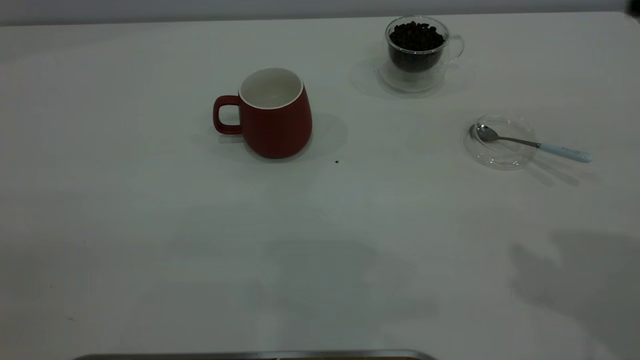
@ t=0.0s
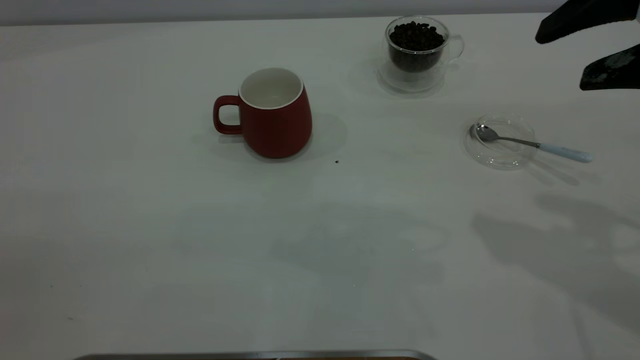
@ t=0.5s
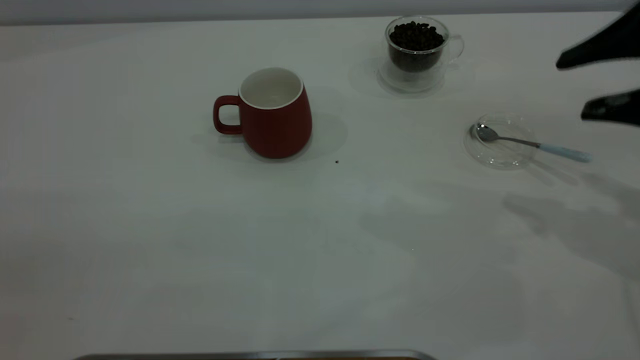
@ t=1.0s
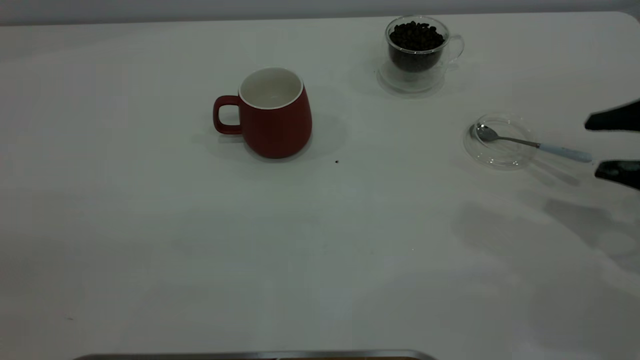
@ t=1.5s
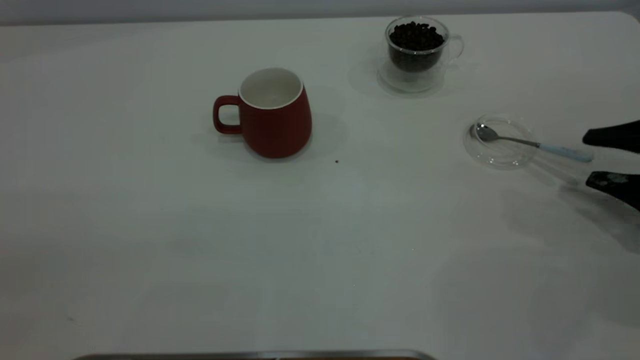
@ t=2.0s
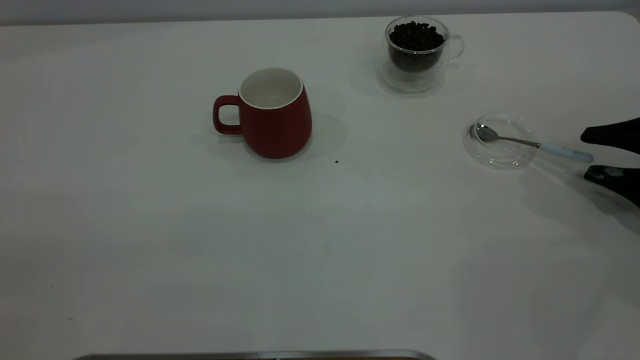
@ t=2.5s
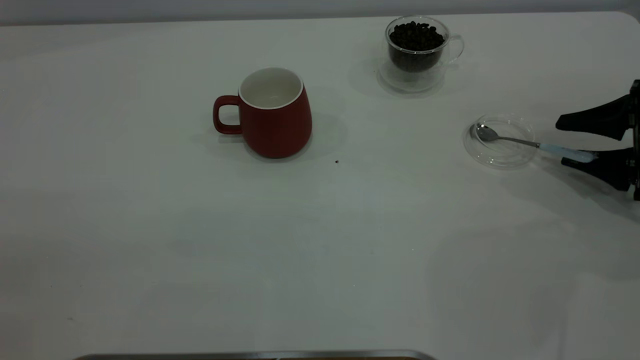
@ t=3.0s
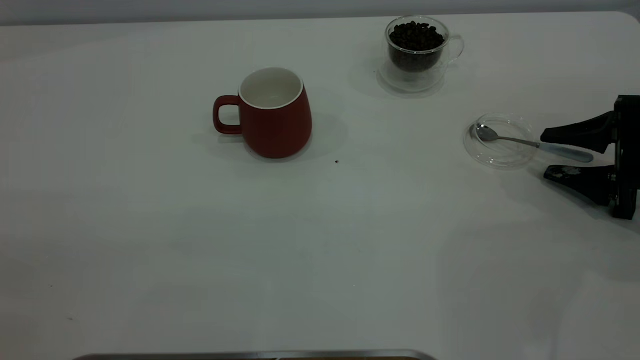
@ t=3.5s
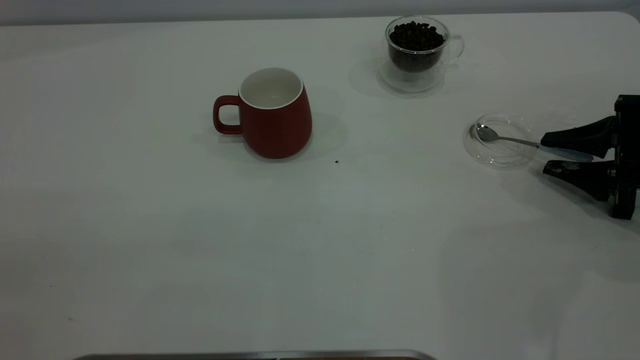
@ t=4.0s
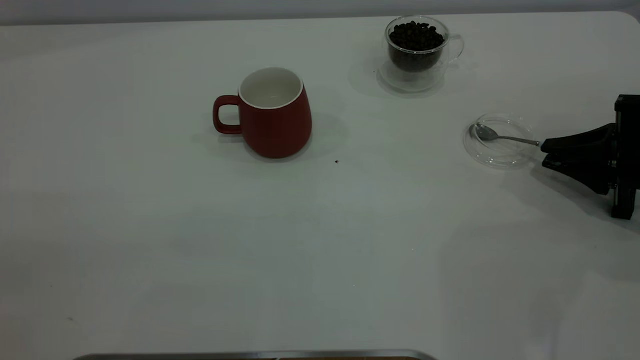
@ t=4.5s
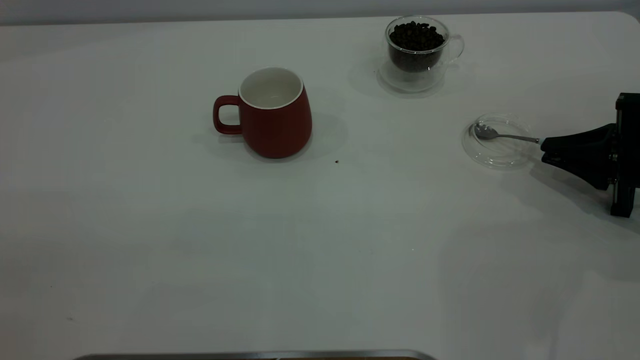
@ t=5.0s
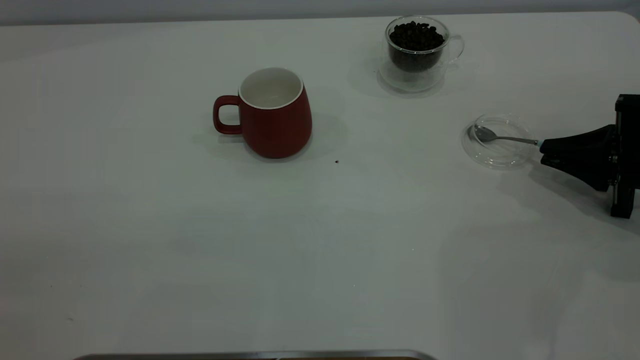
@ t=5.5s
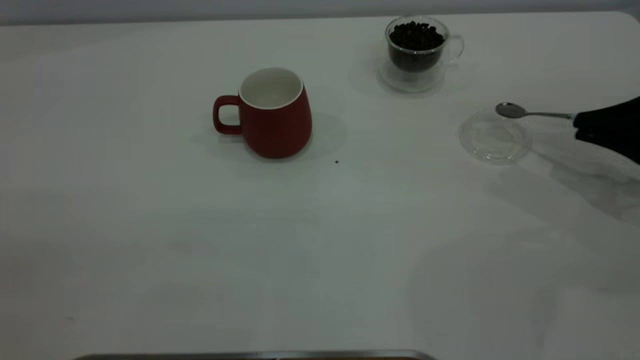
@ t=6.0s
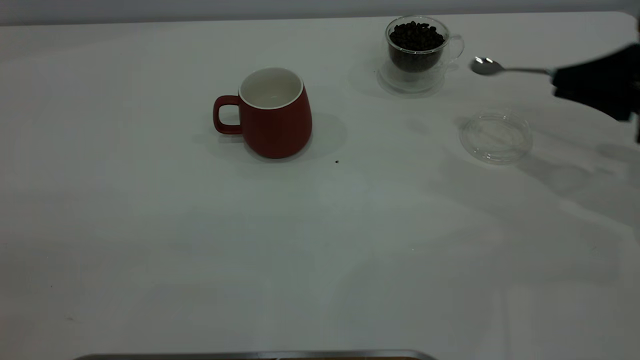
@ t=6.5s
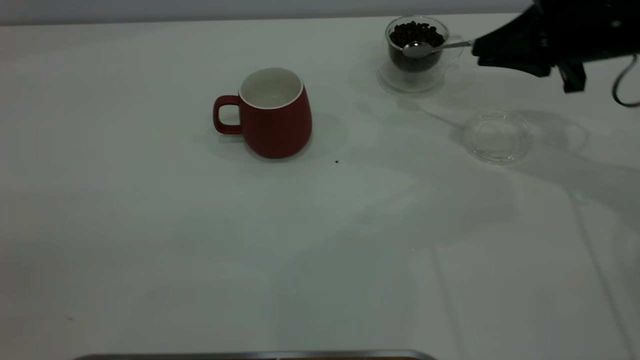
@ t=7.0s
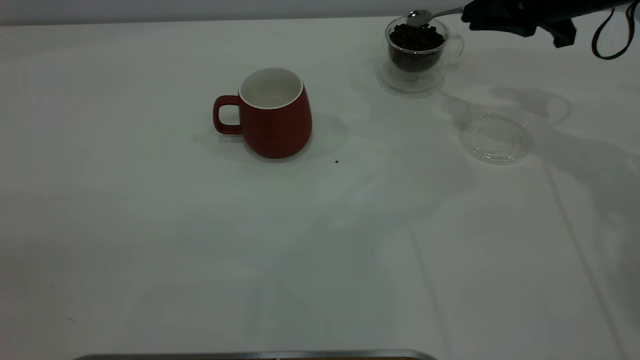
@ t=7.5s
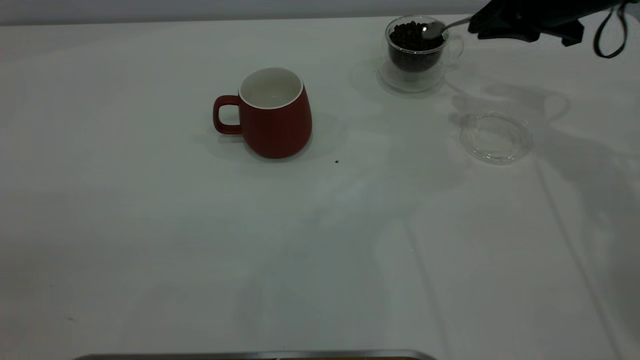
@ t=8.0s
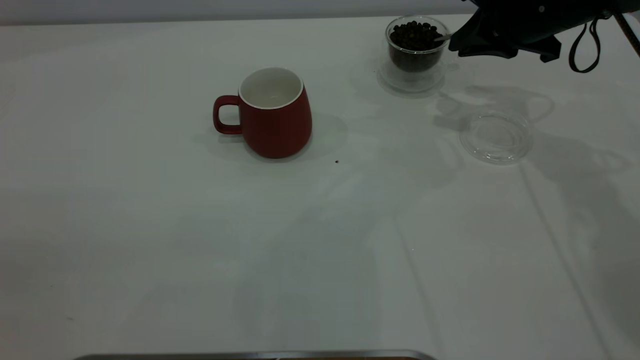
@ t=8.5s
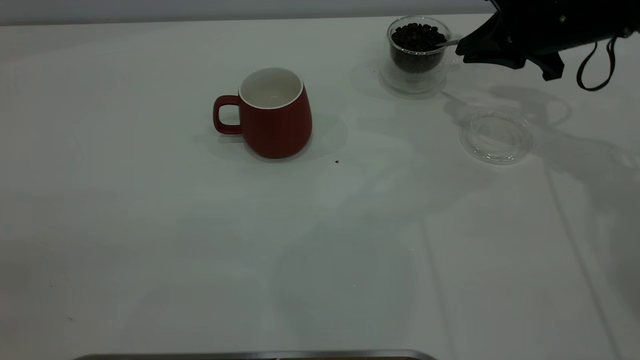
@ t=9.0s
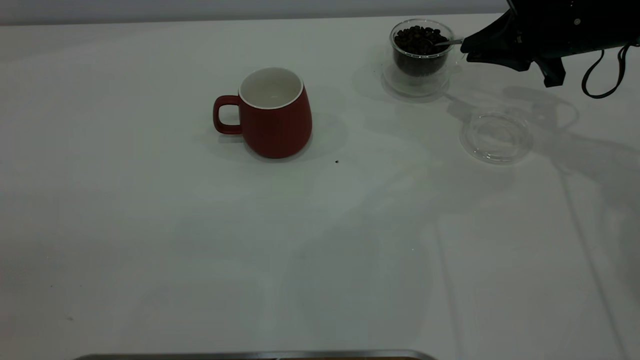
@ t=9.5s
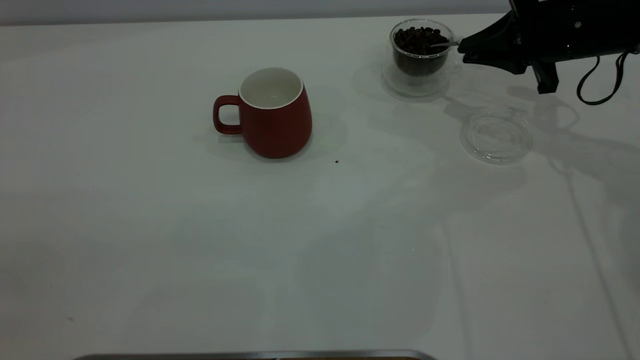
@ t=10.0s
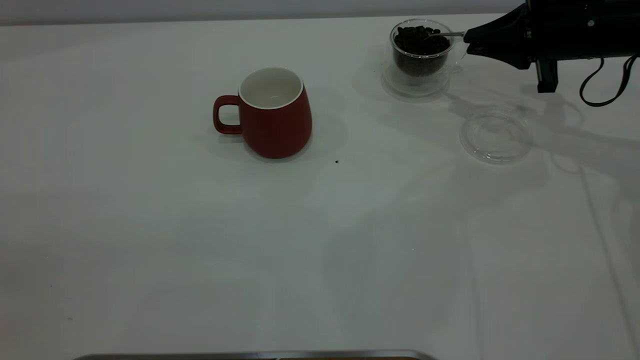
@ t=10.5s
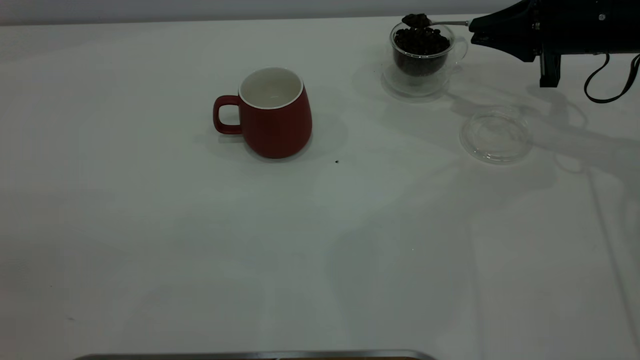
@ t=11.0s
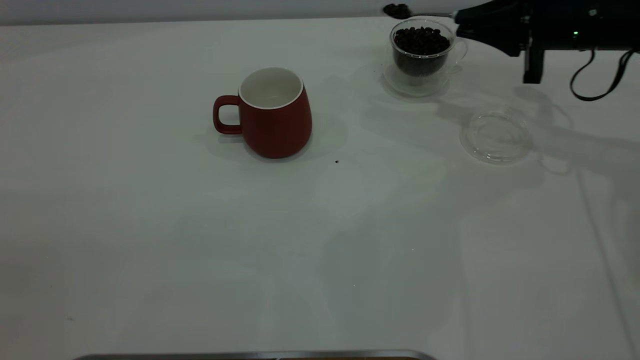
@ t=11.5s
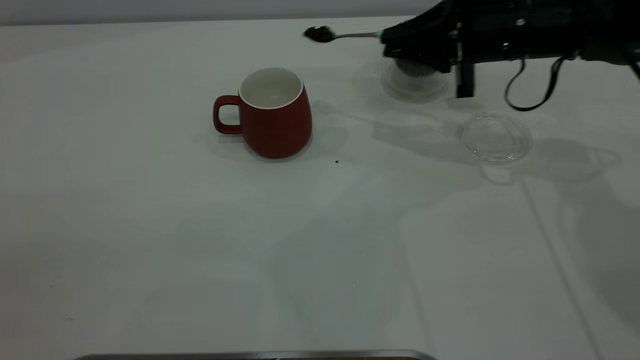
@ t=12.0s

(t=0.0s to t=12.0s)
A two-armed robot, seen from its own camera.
Task of the whole recording: the left gripper place the red cup in the center of the table, the right gripper take the blue spoon from the cup lid and scoop out the coffee beans from the coffee cup and put them into the red cup, the right gripper put the spoon back into the cup lid.
Step, t=0.0s - t=6.0s: Pick up the spoon.
t=0.0s - t=2.0s: The right gripper is displaced downward and to the right by about 30 cm.
t=2.0s - t=4.0s: The right gripper moves about 5 cm, and closes.
t=4.0s - t=6.0s: The right gripper heads upward, covering some 5 cm, and closes up.
t=6.0s - t=8.0s: The right gripper goes roughly 20 cm forward, to the left and upward.
t=8.0s - t=10.0s: The right gripper moves about 5 cm.
t=10.0s - t=12.0s: The right gripper moves to the left, some 10 cm.

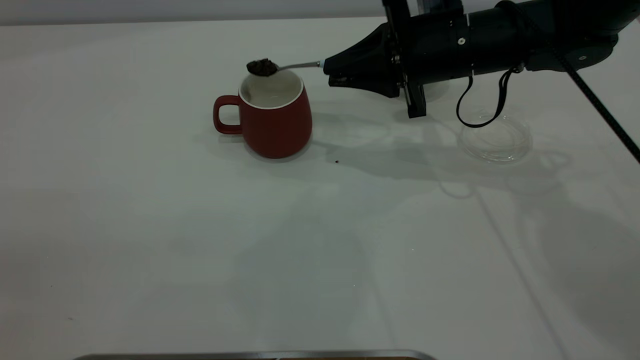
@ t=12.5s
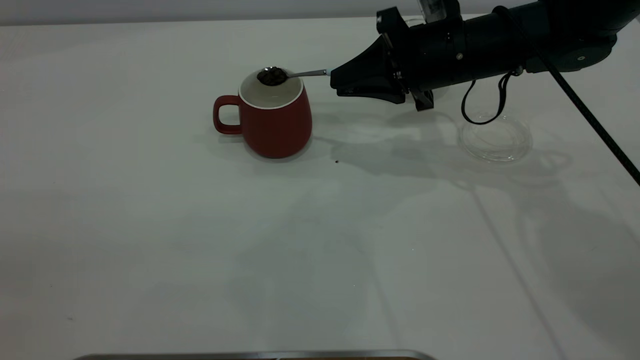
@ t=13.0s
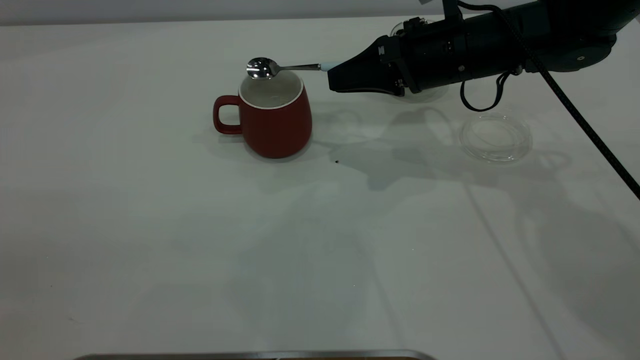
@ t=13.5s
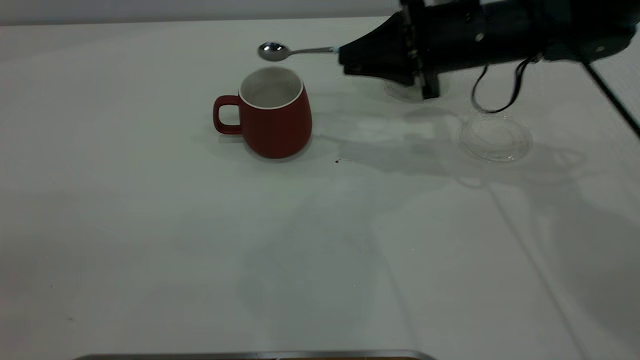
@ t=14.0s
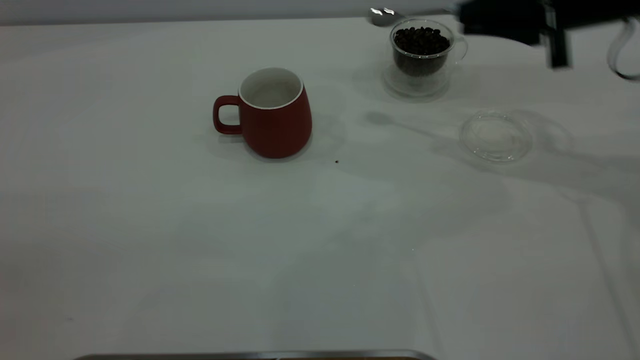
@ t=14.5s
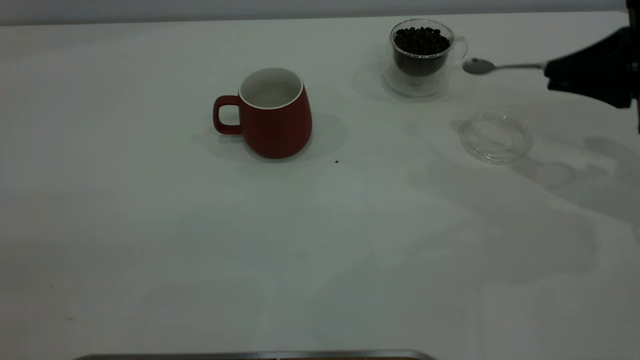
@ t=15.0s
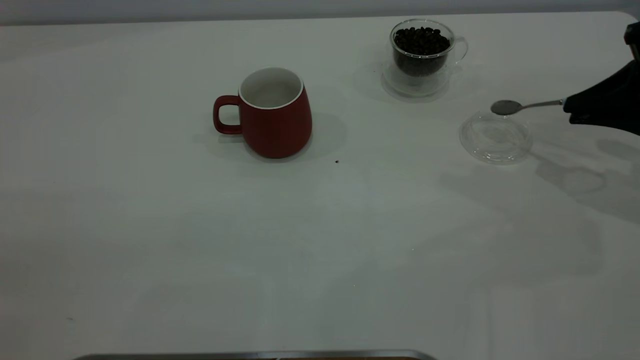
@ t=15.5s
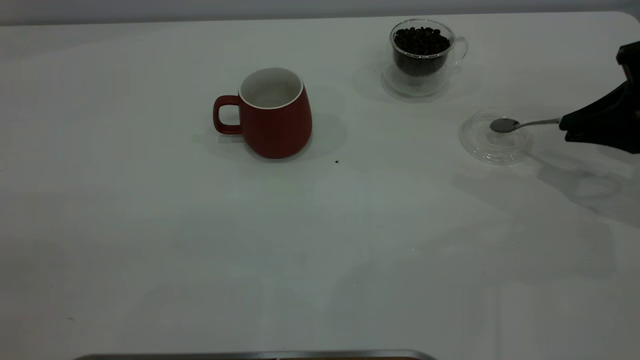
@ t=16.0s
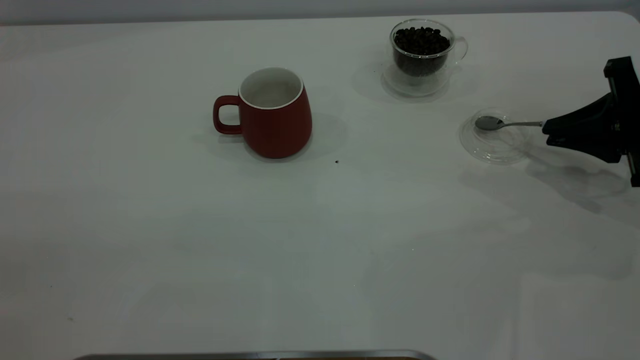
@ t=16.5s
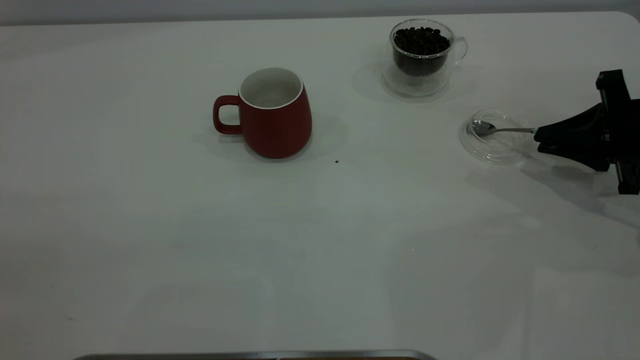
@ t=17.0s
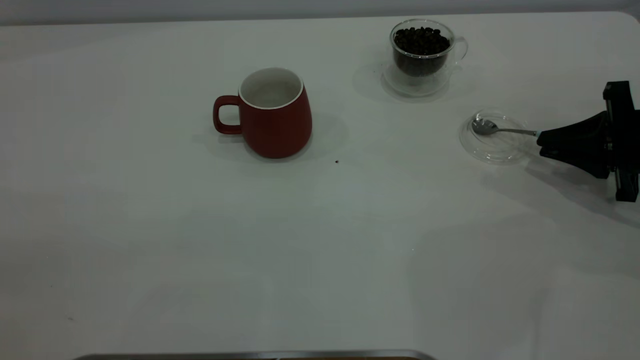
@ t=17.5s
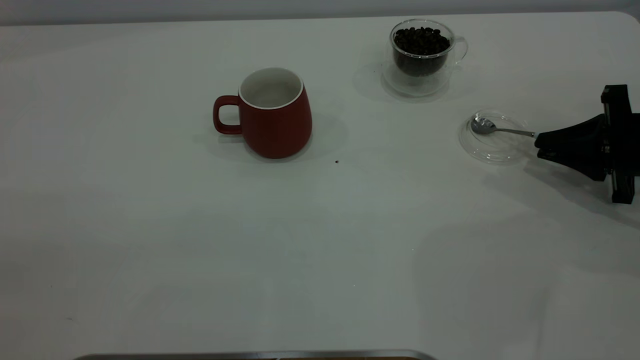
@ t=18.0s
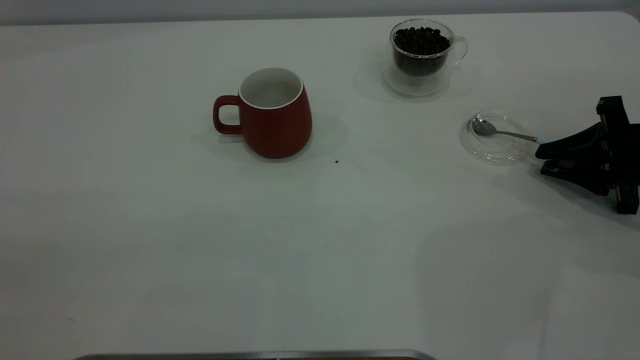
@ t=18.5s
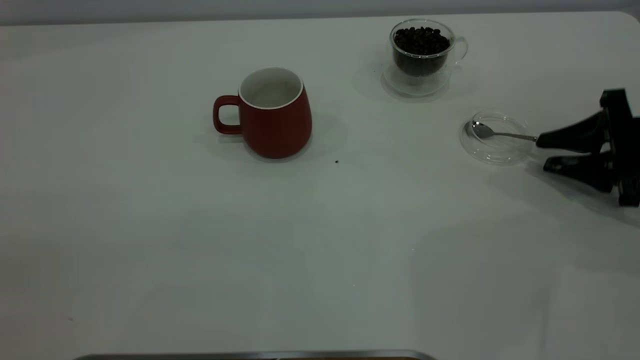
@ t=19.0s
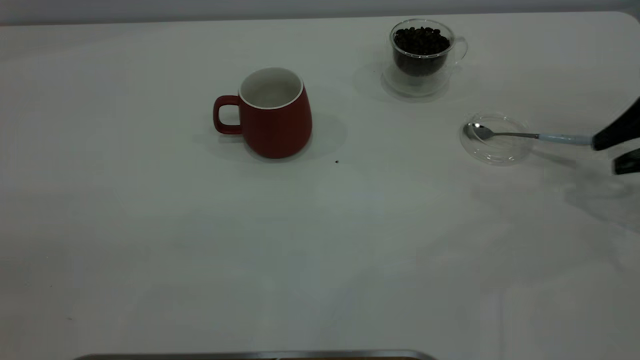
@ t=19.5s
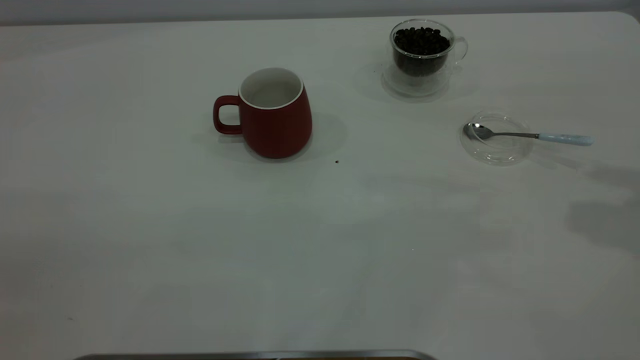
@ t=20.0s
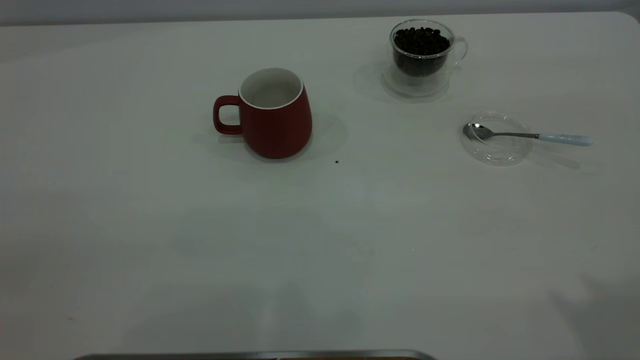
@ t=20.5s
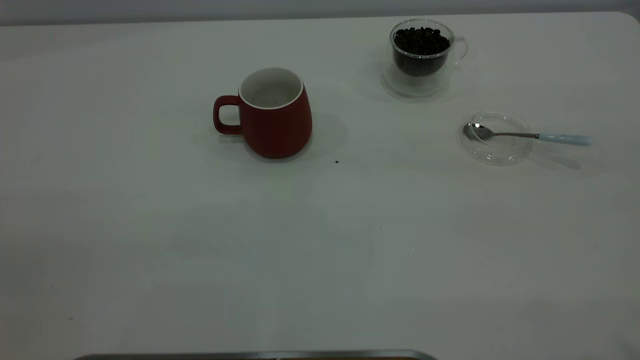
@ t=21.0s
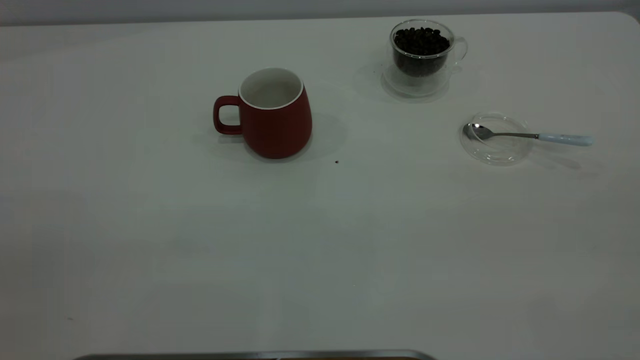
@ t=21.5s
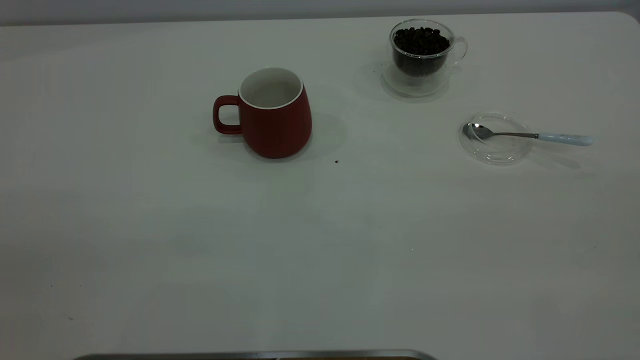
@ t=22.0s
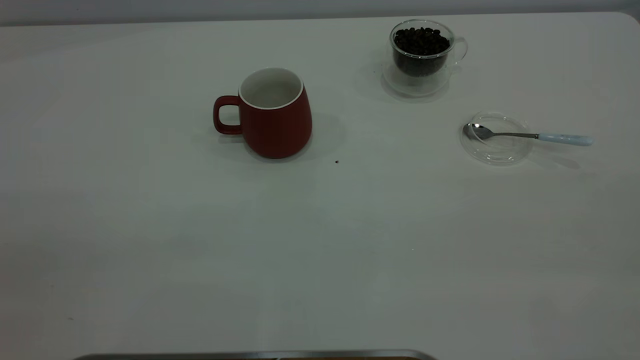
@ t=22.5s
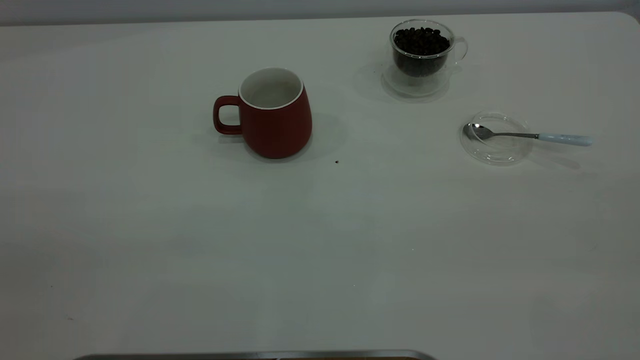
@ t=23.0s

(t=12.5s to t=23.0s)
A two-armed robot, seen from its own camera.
Task of the whole recording: the left gripper place the red cup in the center of the table, the right gripper take the blue spoon from the cup lid and scoop out the coffee beans from the coffee cup and put them into the red cup, the right gripper put the spoon back into the cup lid.
Step, t=14.0s - t=19.0s: Place the spoon back in its original place.
t=12.5s - t=14.5s: The right gripper is displaced to the right by approximately 15 cm.
t=14.5s - t=16.5s: The right gripper goes approximately 15 cm downward, to the right and backward.
t=16.5s - t=19.0s: The right gripper opens up.
t=19.0s - t=21.0s: The right gripper travels upward and backward by approximately 50 cm.
